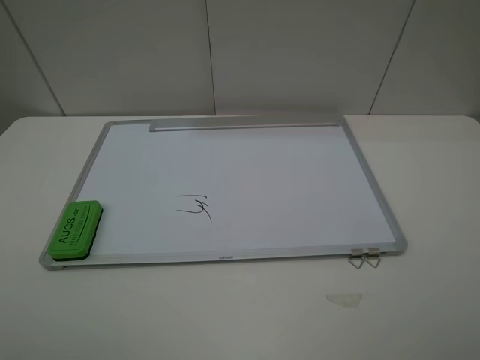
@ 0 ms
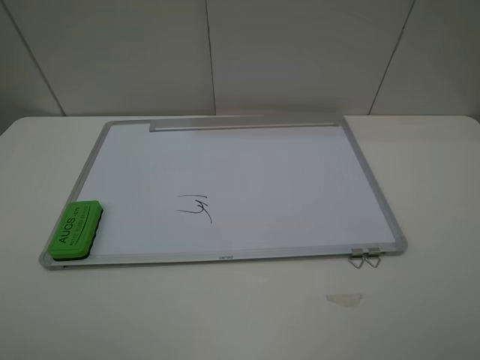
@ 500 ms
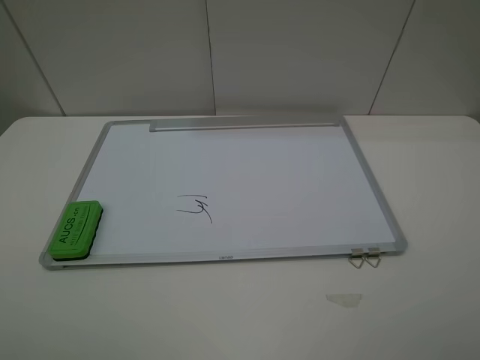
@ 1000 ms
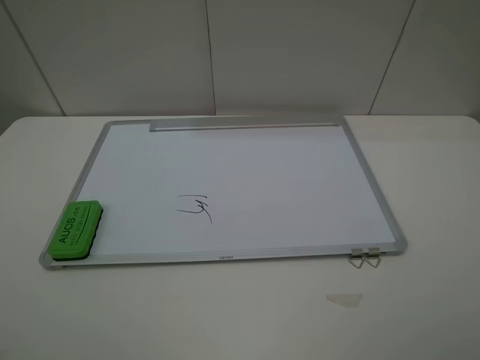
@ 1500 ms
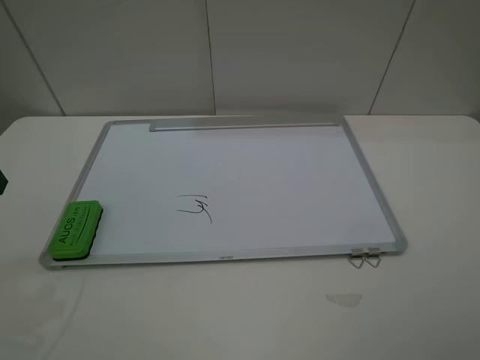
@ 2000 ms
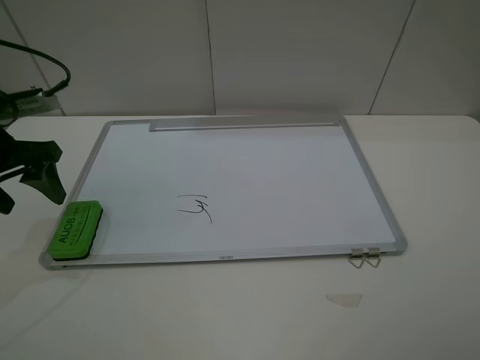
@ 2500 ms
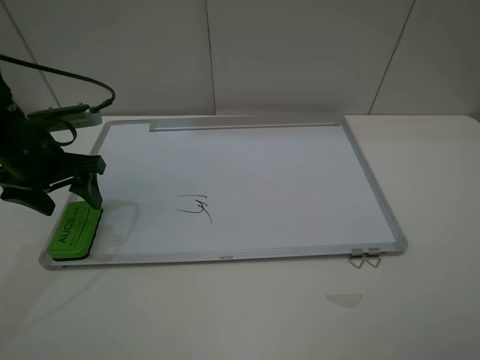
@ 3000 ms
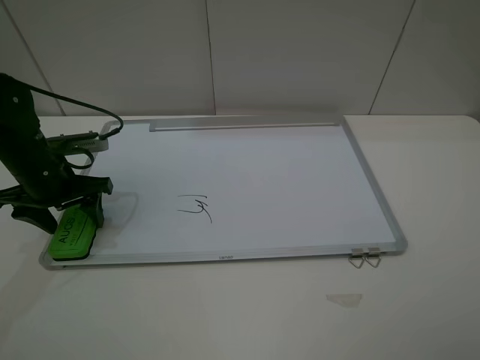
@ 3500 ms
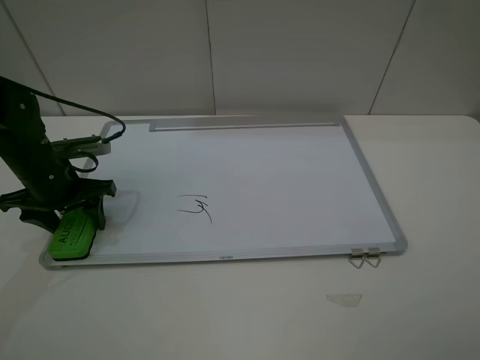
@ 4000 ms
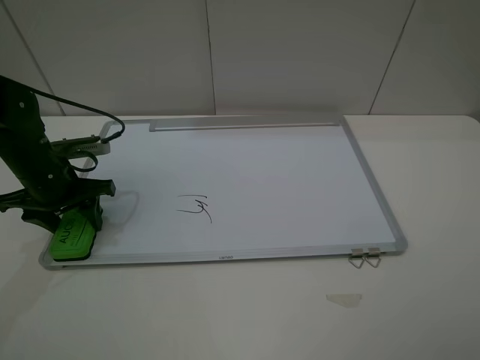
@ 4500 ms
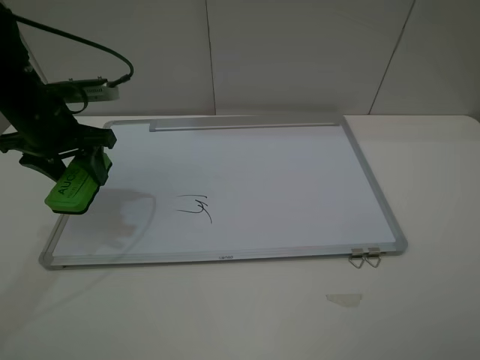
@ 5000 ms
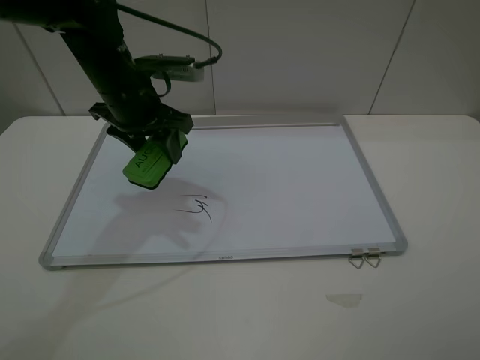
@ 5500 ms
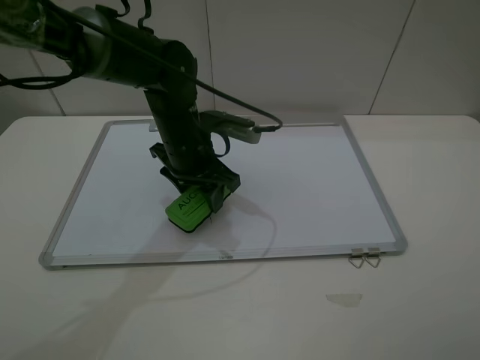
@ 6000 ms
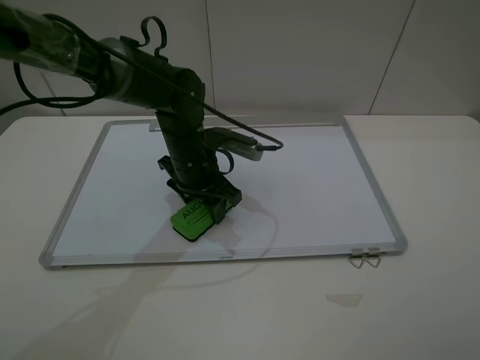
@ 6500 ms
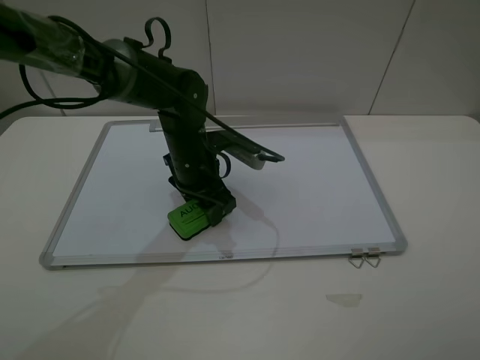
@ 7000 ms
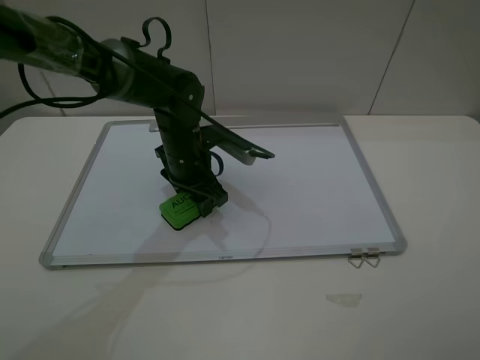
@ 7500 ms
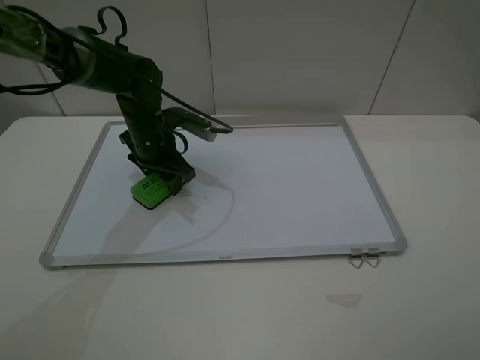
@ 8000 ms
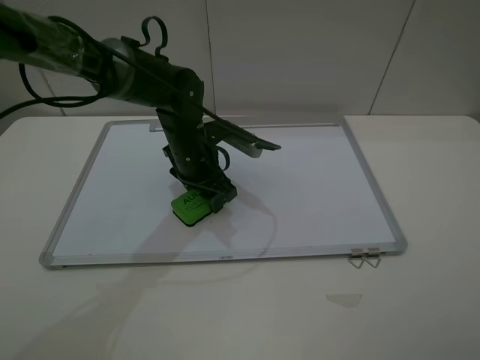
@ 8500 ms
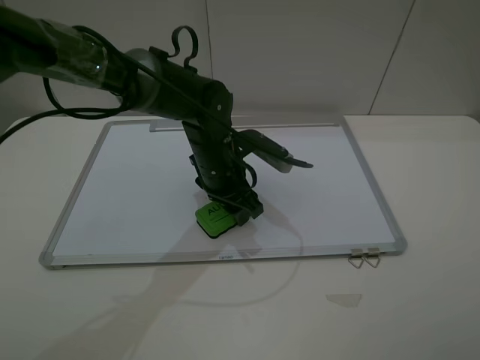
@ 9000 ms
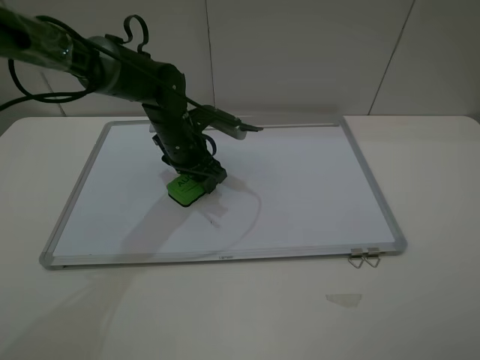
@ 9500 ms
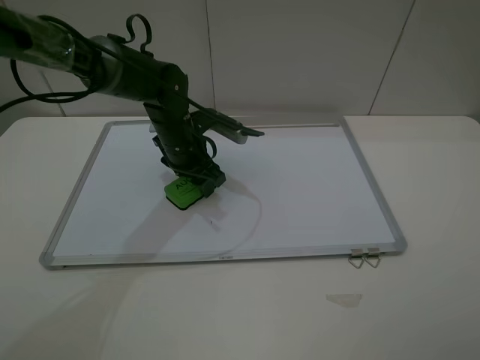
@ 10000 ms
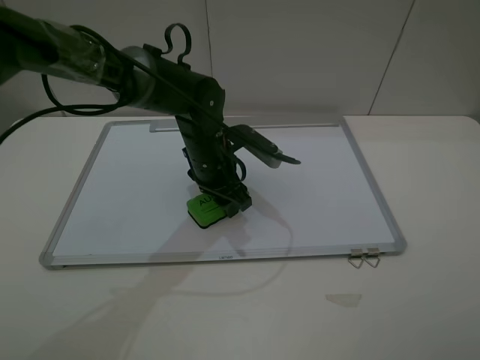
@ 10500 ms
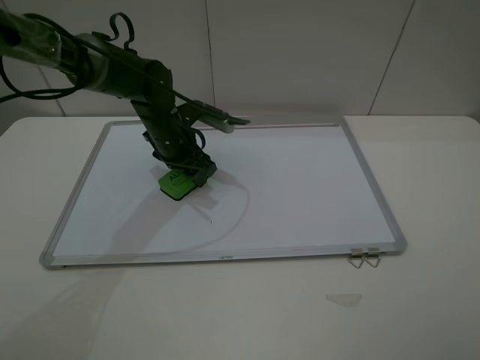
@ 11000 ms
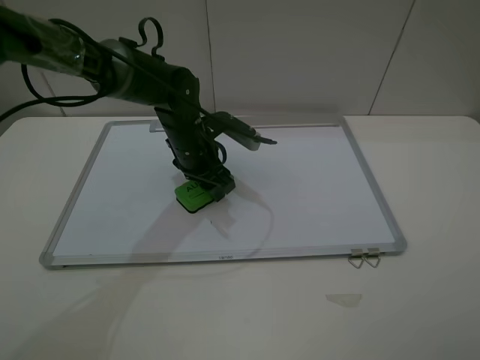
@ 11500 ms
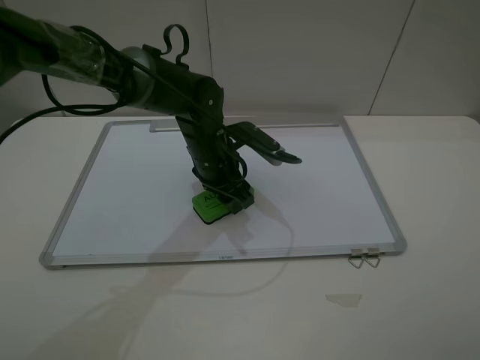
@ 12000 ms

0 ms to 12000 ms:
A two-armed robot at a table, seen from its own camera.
Step, 0 ms to 4000 ms: Grasp the eraser with the left gripper.
2000 ms to 4000 ms: The left gripper goes approximately 20 cm downward and forward, and closes up.
4000 ms to 6000 ms: The left gripper heads to the right, covering about 20 cm.
6000 ms to 8000 ms: The left gripper moves to the left and forward, roughly 10 cm.
8000 ms to 10000 ms: The left gripper goes roughly 5 cm to the right.
10000 ms to 12000 ms: The grippers stay close to where they were, moving slightly.

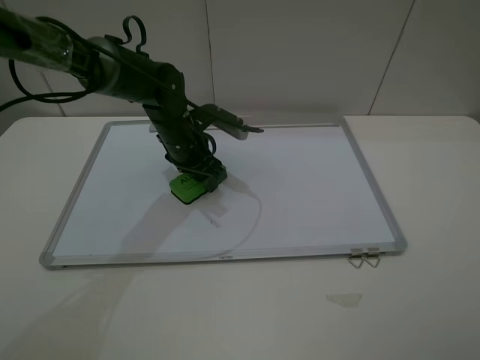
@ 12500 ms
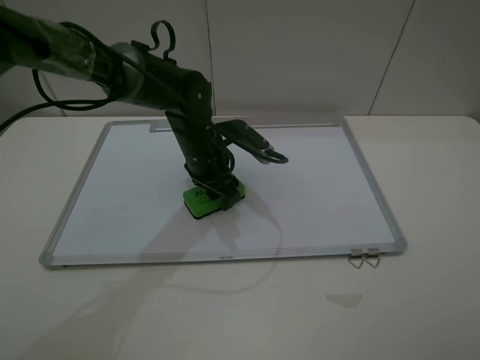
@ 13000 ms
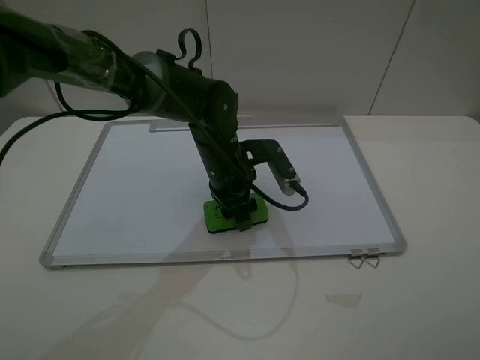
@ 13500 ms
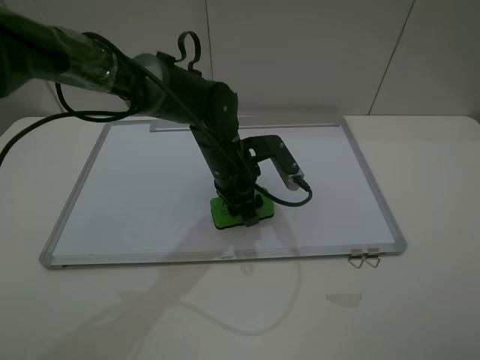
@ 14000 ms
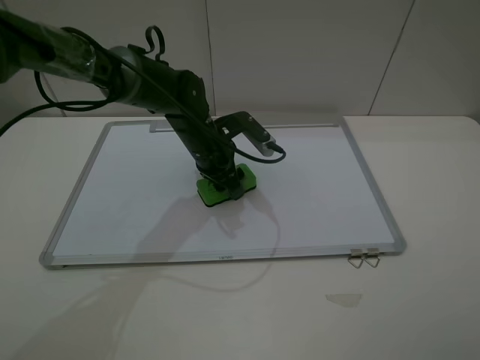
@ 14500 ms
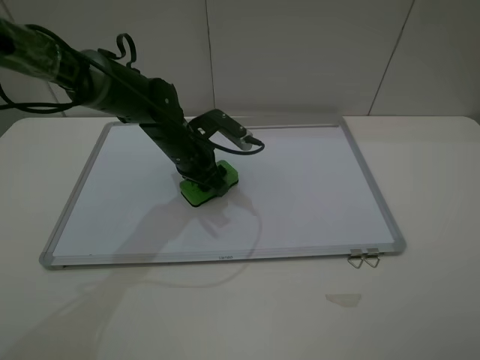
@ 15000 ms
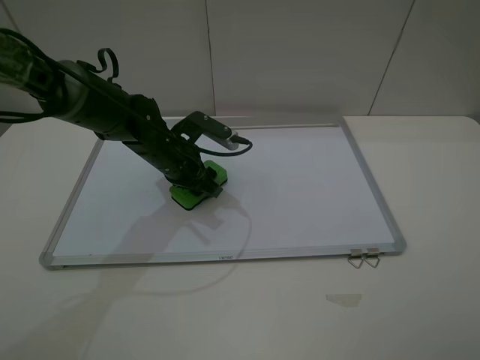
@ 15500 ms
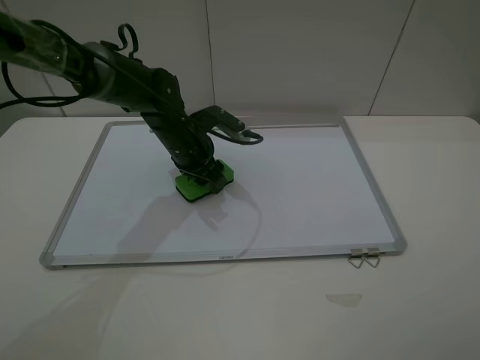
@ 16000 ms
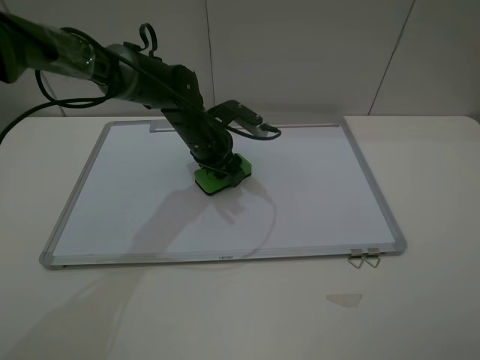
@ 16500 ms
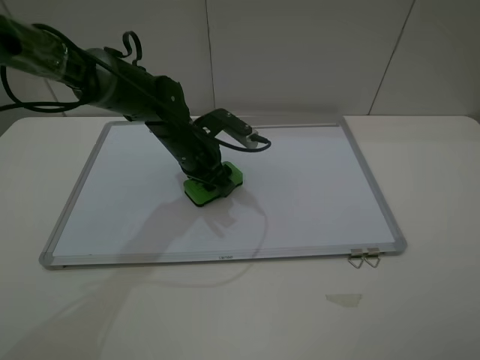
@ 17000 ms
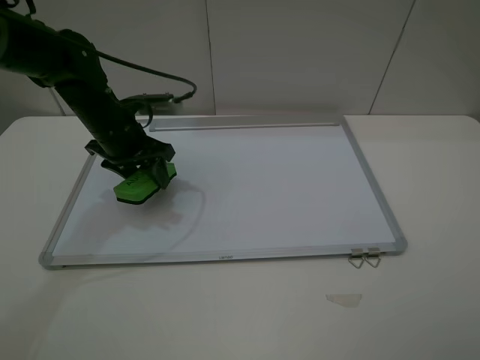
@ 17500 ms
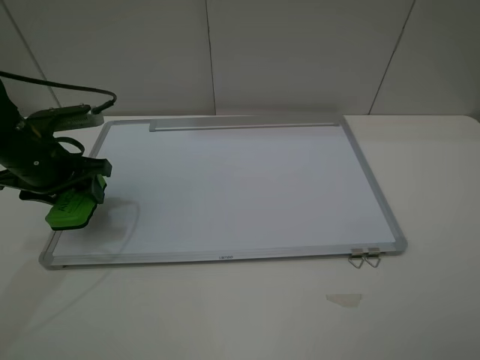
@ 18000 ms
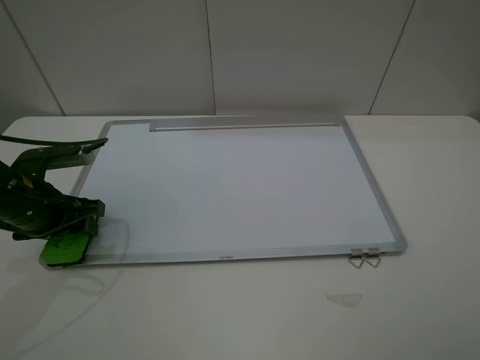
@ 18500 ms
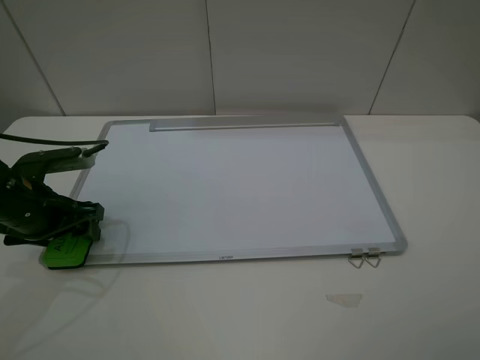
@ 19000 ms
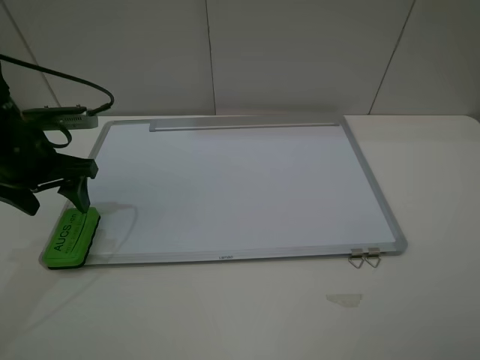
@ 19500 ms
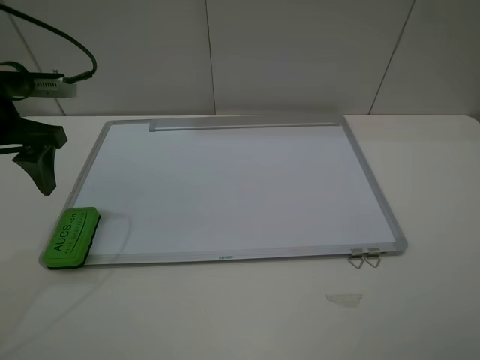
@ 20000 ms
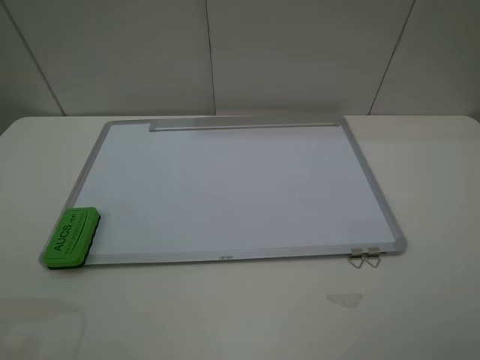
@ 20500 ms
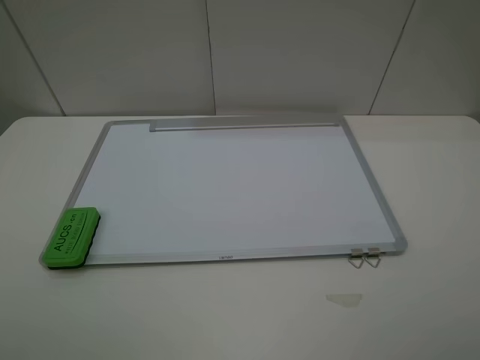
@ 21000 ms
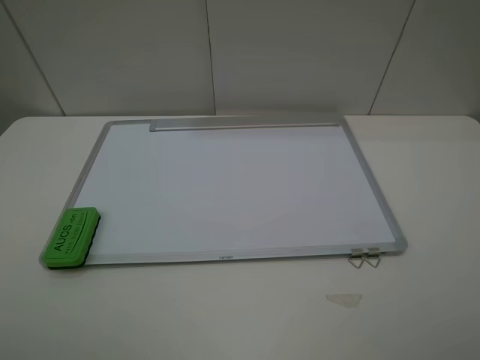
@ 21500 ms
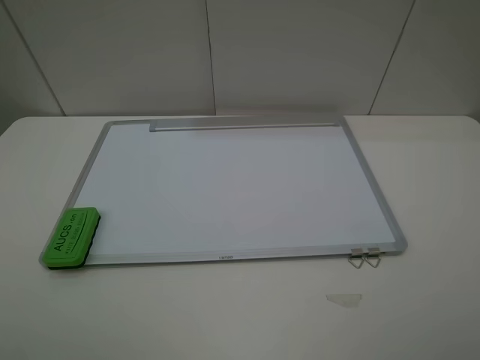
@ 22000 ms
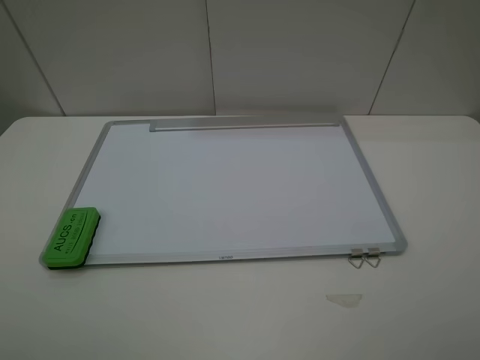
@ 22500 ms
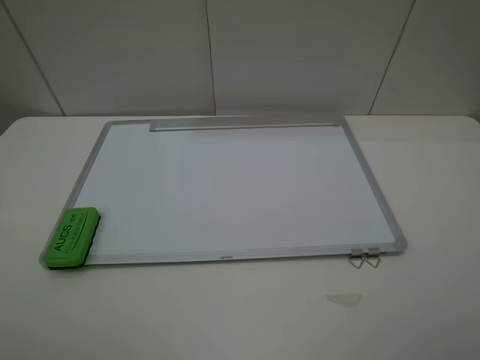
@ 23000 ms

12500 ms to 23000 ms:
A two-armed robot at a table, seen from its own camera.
Step, 12500 ms to 16500 ms: Grasp the eraser and wipe the blackboard with the left gripper.
Step, 17000 ms to 19000 ms: Place the eraser with the left gripper.
16500 ms to 19000 ms: The left gripper moves to the left and backward, roughly 25 cm, and opens its fingers.
19000 ms to 21000 ms: The left gripper goes some 25 cm backward and upward.
